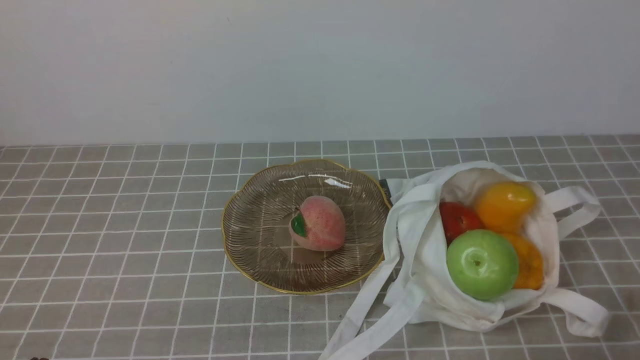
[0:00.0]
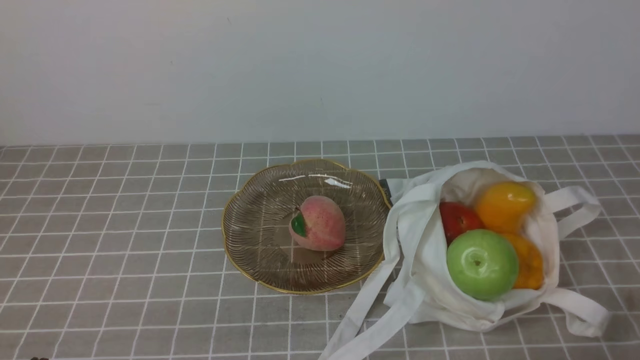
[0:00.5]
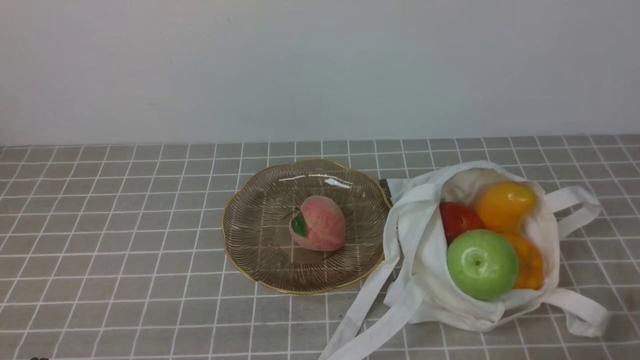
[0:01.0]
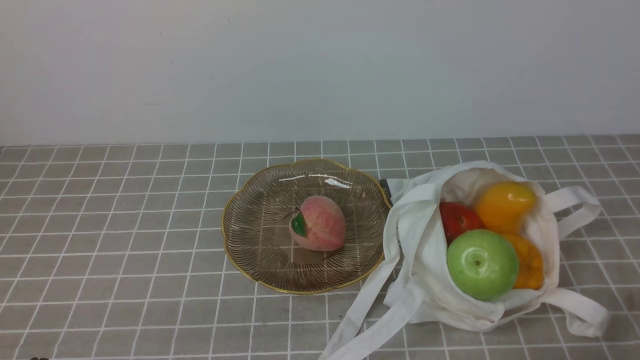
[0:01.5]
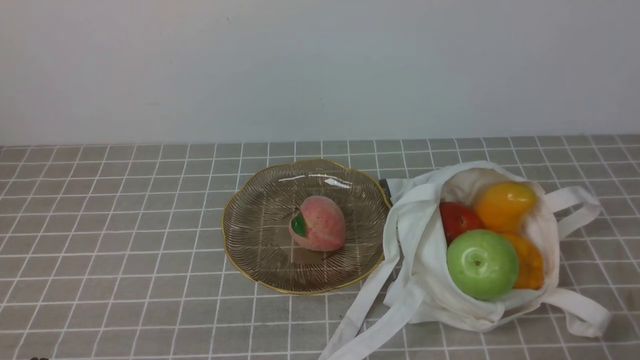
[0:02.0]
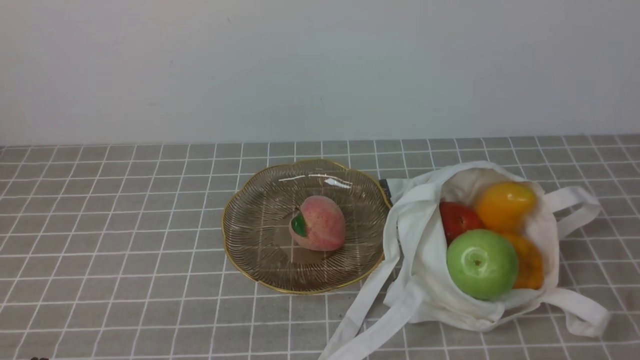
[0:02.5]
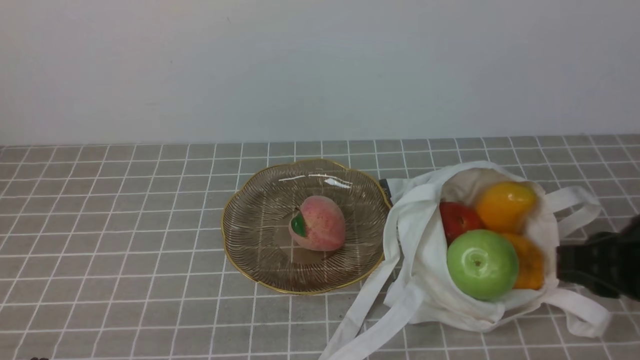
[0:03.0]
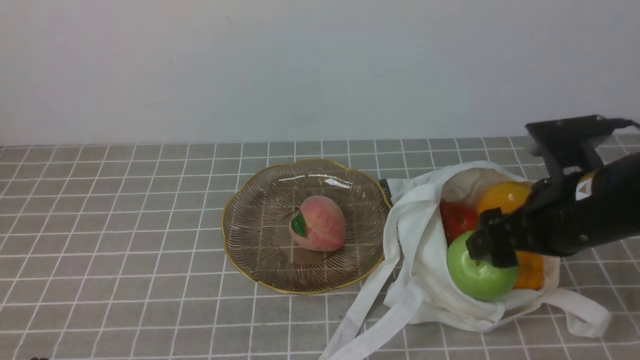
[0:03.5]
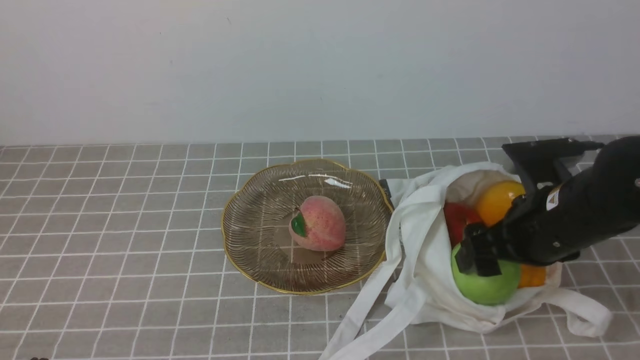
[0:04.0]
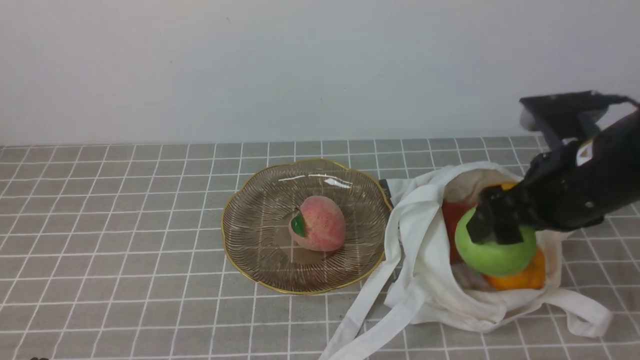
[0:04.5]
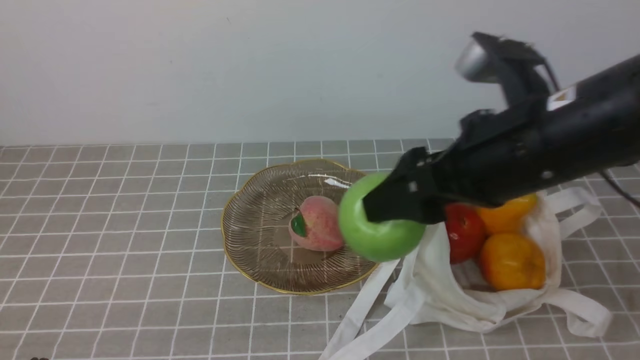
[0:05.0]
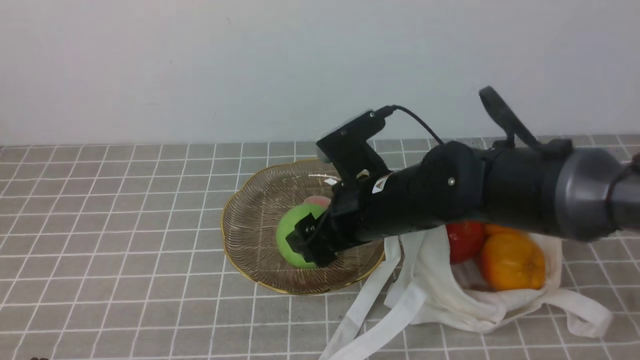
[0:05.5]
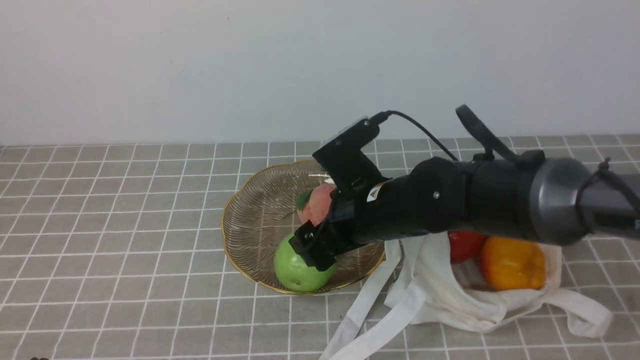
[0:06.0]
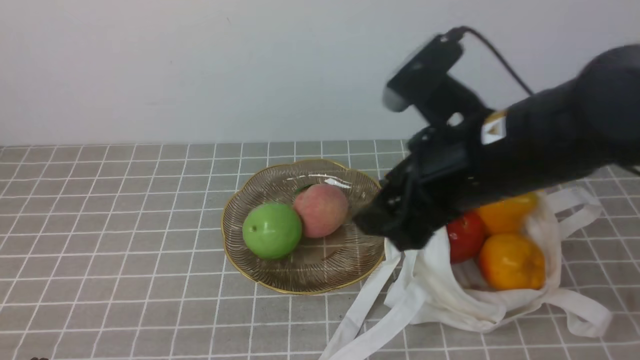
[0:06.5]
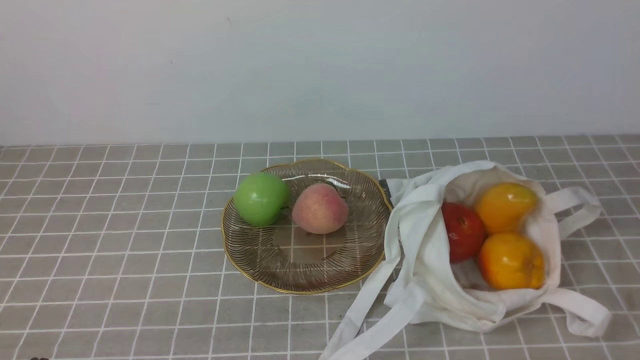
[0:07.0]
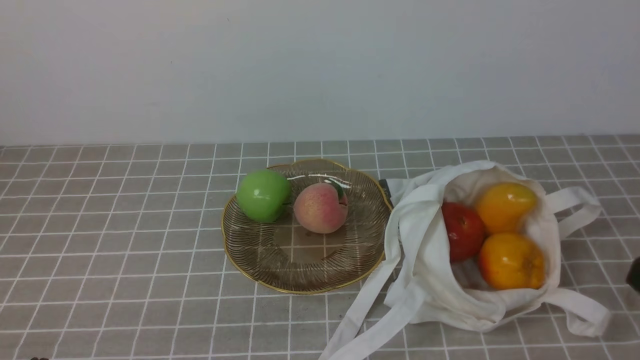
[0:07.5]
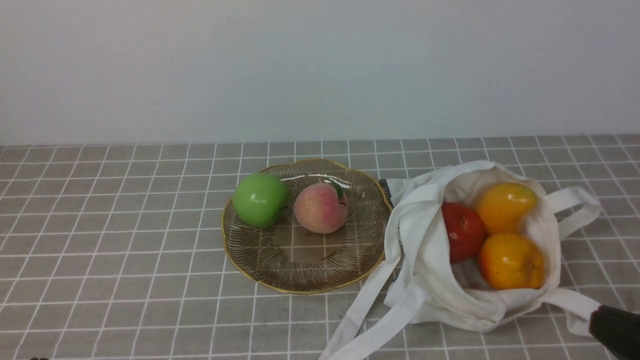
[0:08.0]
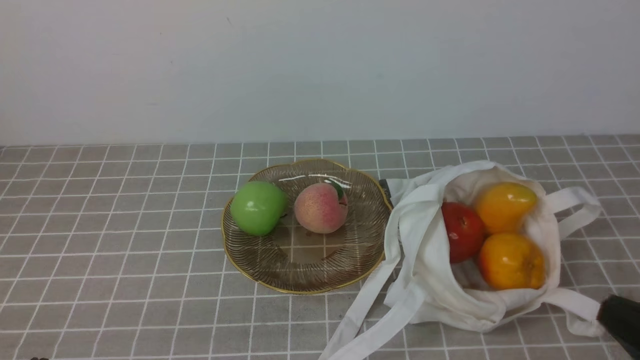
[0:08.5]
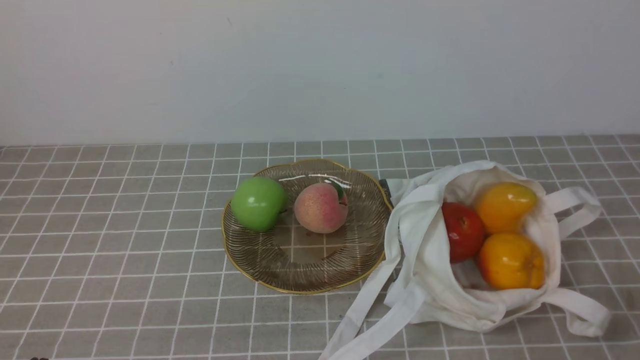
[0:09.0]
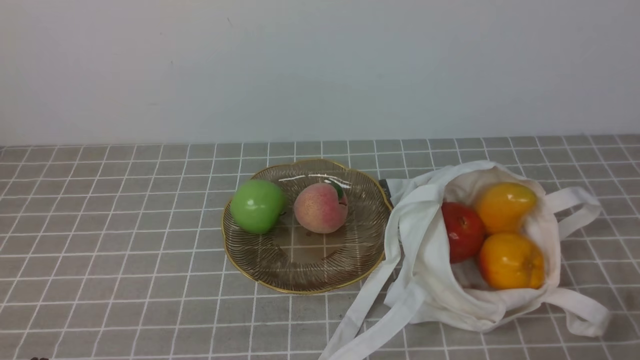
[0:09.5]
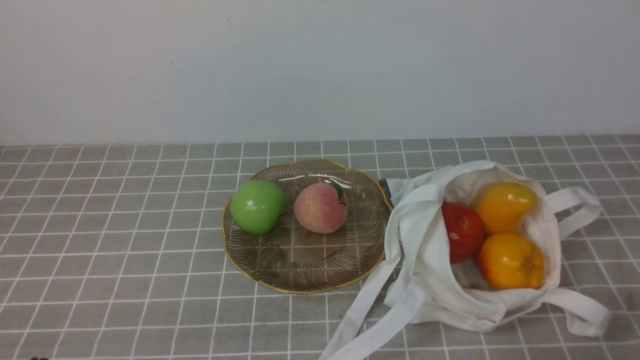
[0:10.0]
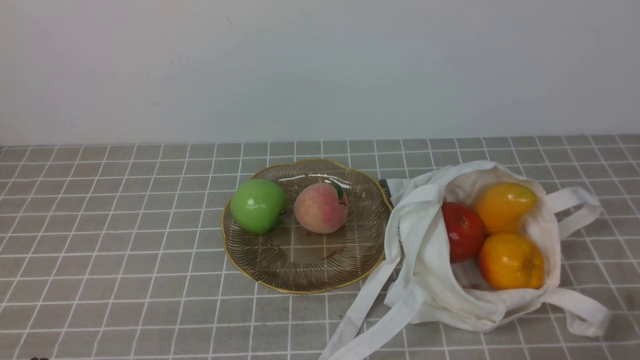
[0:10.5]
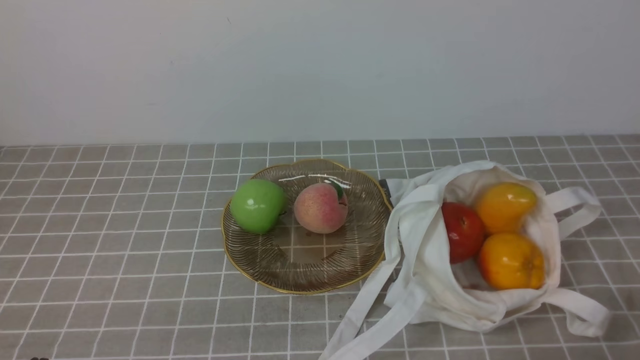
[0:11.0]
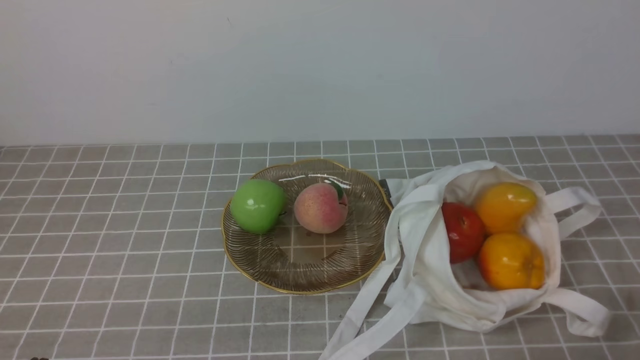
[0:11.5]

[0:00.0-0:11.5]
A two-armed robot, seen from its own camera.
Step, 0:00.0 to 0:04.0: use the right arm to grab an apple from the bag.
Step, 0:04.5 to 0:06.0: use the right arm to put the apple into the empty plate on the left.
0:02.0 to 0:04.0: The right gripper shifts some 20 cm forward, and opens its fingers.
0:04.0 to 0:06.0: The right gripper goes about 15 cm to the left.
0:06.0 to 0:07.5: The right gripper moves backward and to the right, about 30 cm, and closes.
0:09.5 to 0:11.5: Neither gripper changes place.
